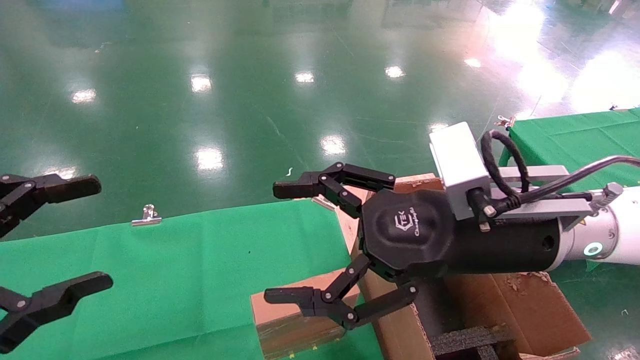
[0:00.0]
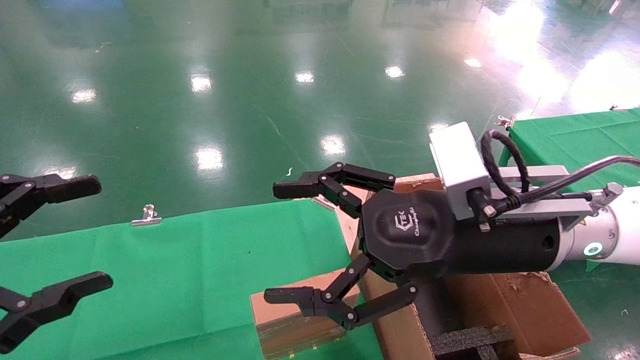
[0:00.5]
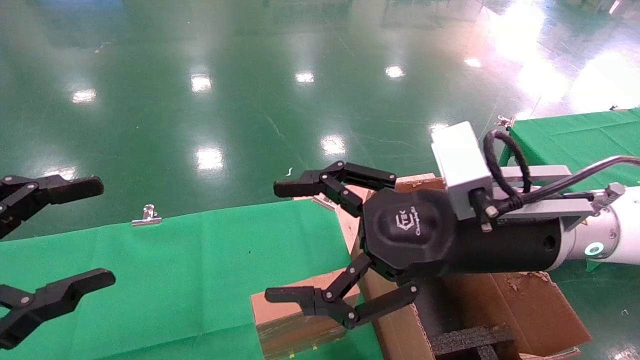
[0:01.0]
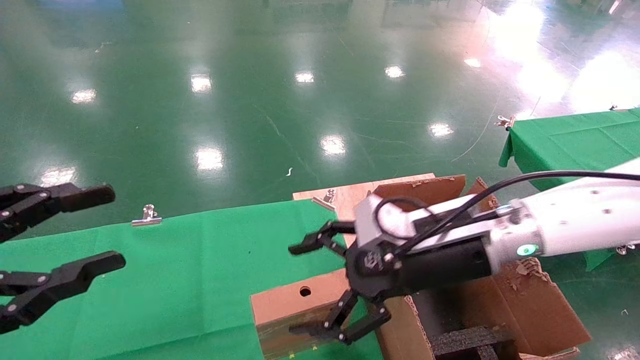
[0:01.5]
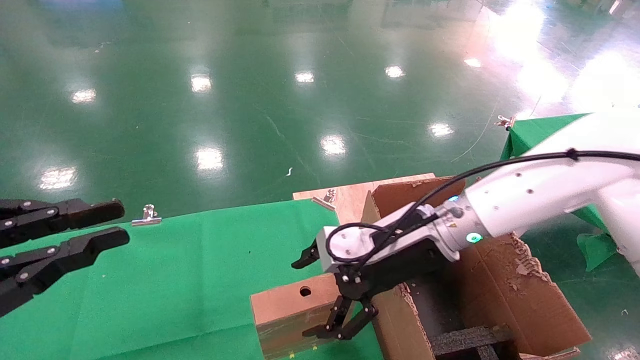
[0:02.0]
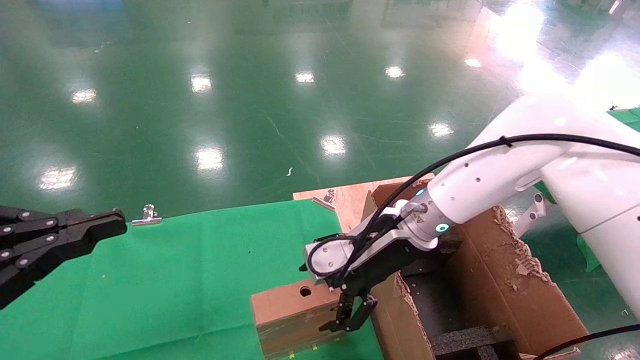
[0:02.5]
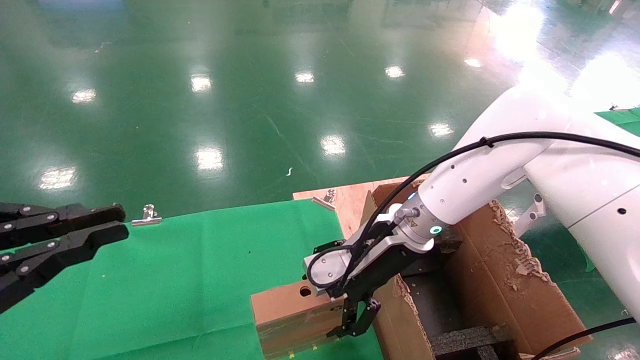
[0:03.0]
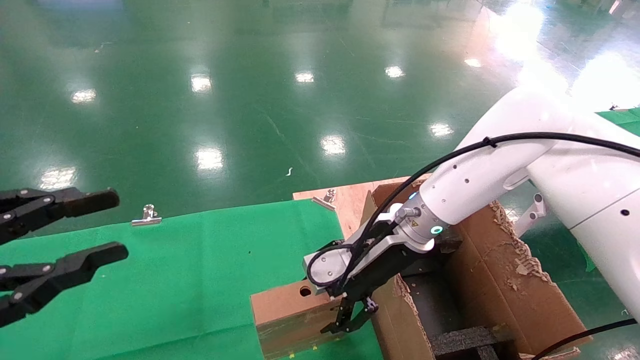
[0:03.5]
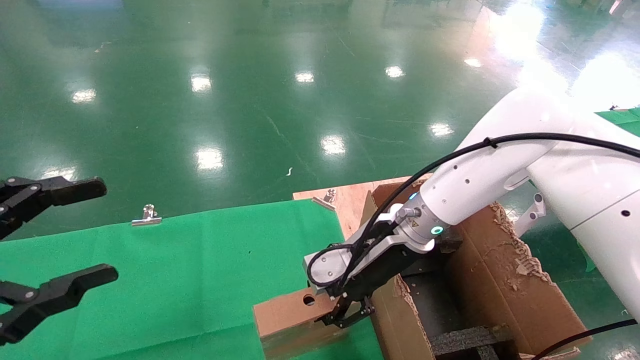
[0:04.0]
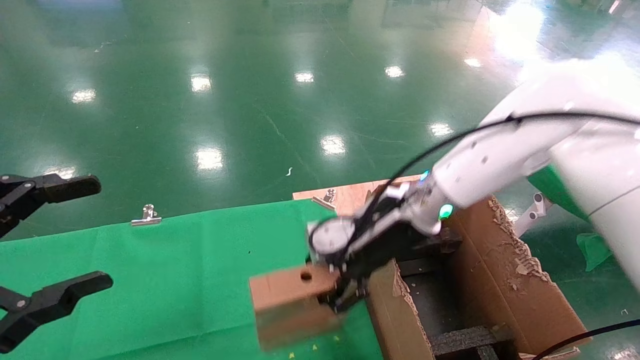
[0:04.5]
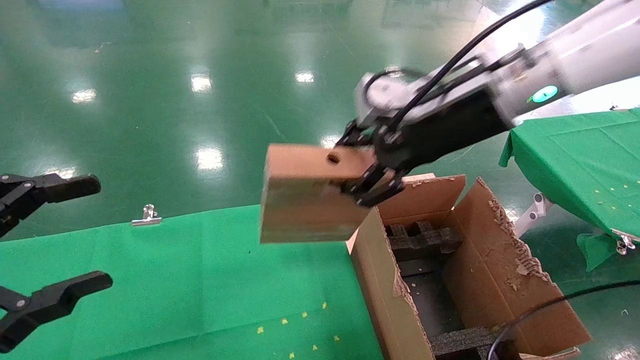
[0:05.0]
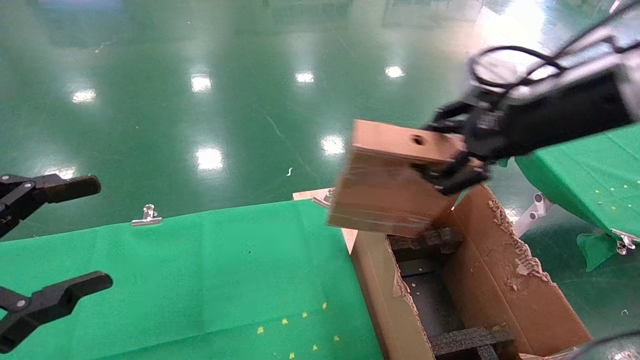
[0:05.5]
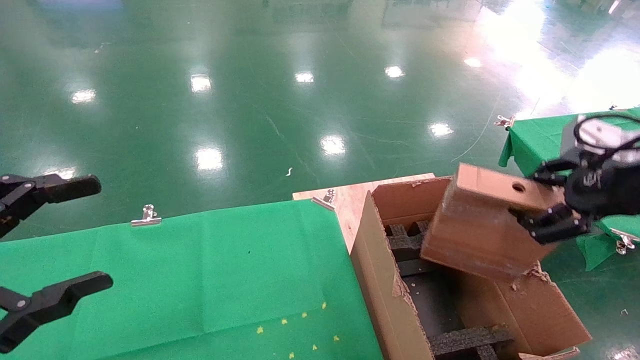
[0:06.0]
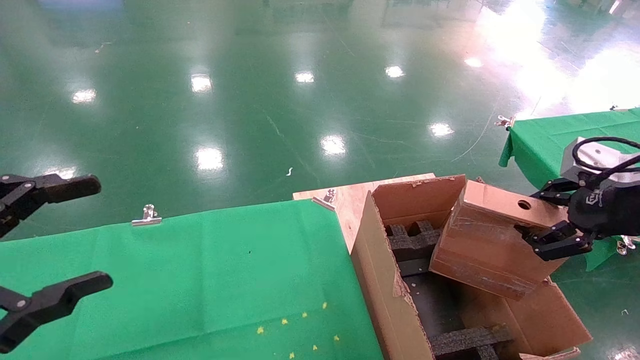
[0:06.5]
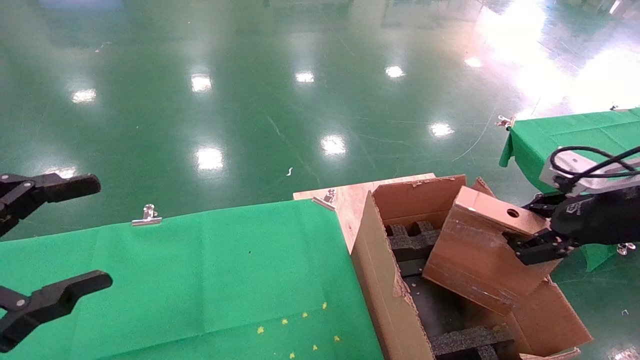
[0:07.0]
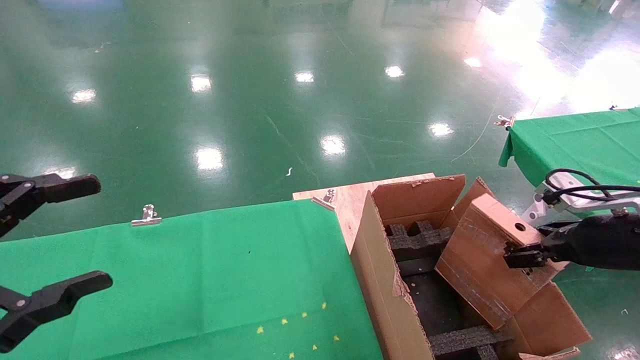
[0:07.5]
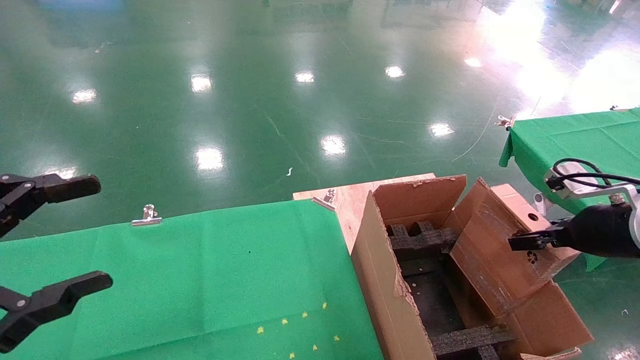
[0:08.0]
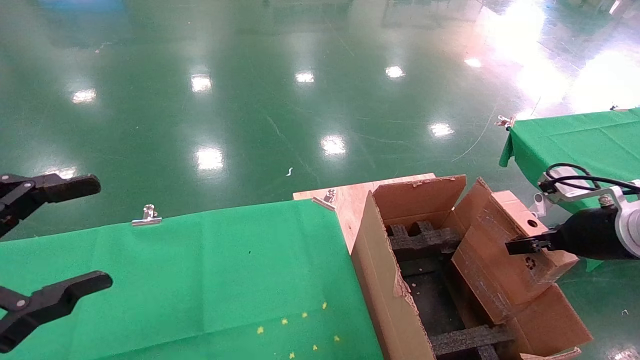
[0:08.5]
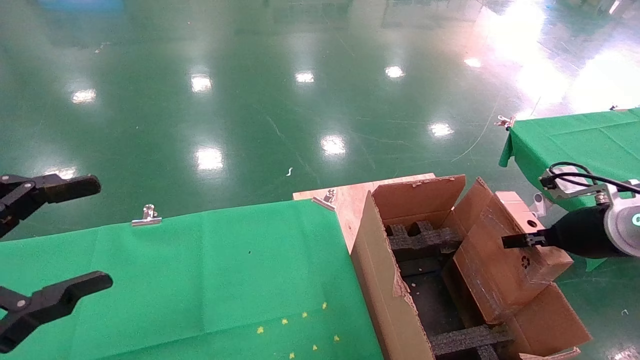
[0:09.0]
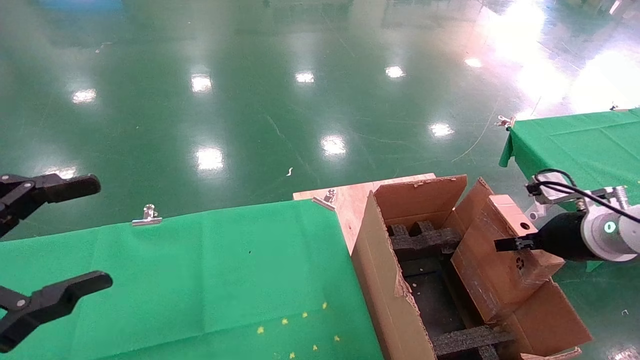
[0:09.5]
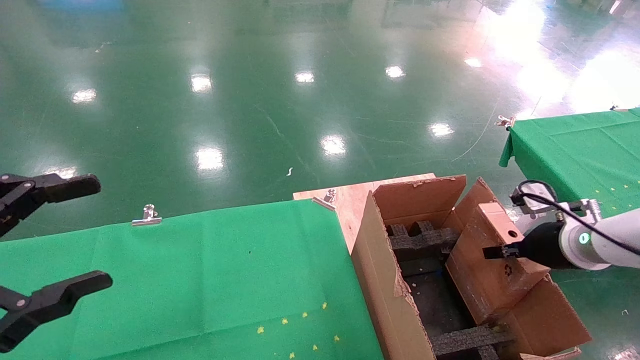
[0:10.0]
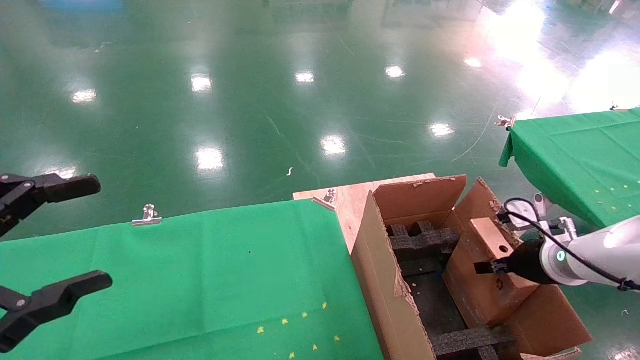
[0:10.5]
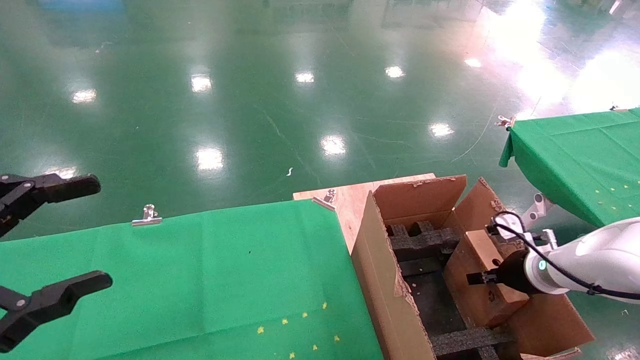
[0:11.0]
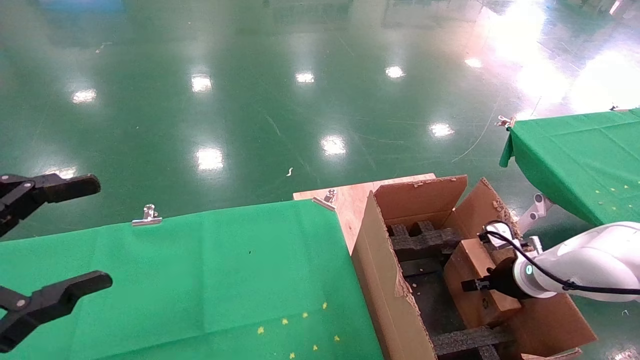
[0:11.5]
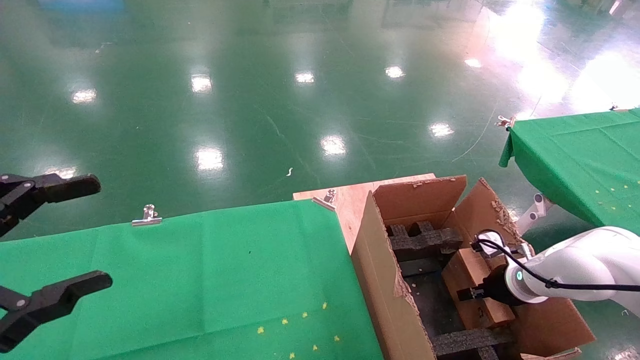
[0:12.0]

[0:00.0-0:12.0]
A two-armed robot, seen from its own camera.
Task of the whole recording: using a robotic arm to pick up a cardboard box and palace it the carton.
Step, 0:01.5 to 0:03.5: Pick up the mouse and the power cord paper box.
0:00.0 to 0:02.0: The left gripper closes up, while the right gripper is displaced forward and downward by approximately 10 cm.
0:02.0 to 0:04.0: The right gripper closes its fingers. The left gripper opens its fingers.
0:04.0 to 0:06.0: The right gripper heads to the right, backward and upward, covering some 30 cm.
0:06.0 to 0:08.0: The right gripper moves downward, roughly 10 cm.
0:08.0 to 0:10.0: The right gripper moves downward and forward, approximately 10 cm.
0:10.0 to 0:12.0: The right gripper shifts about 15 cm downward and forward.

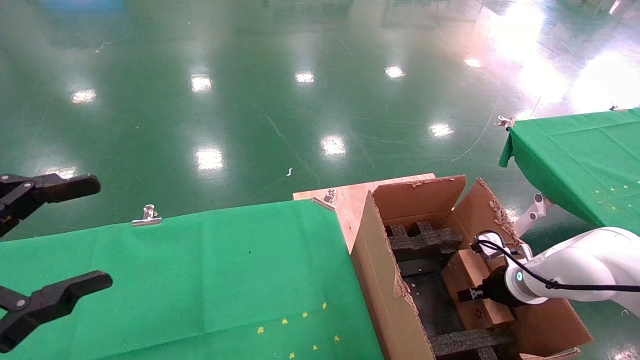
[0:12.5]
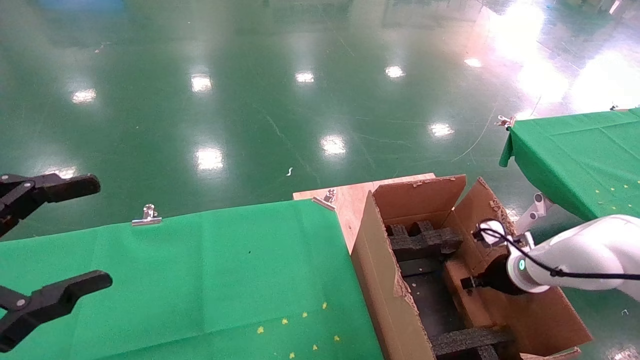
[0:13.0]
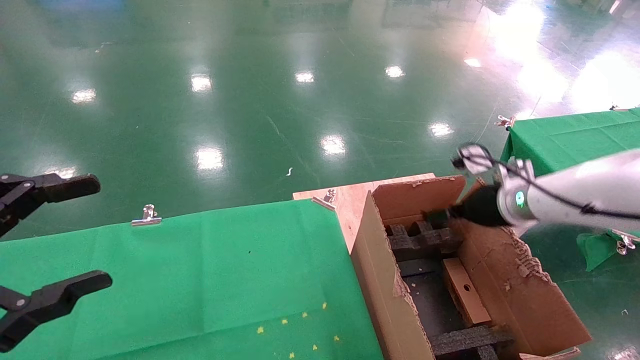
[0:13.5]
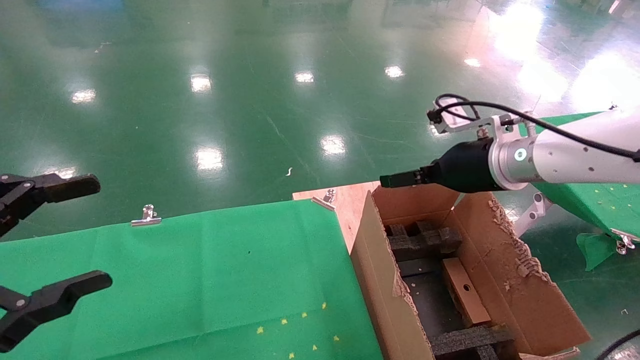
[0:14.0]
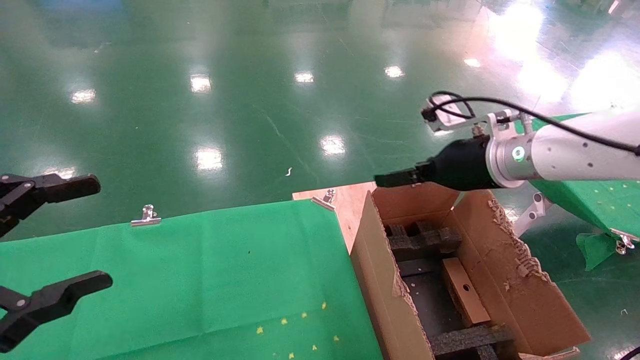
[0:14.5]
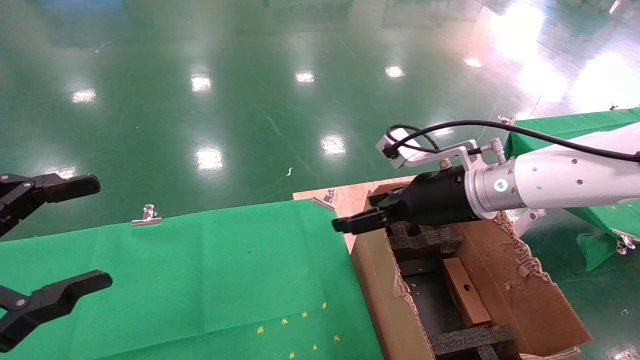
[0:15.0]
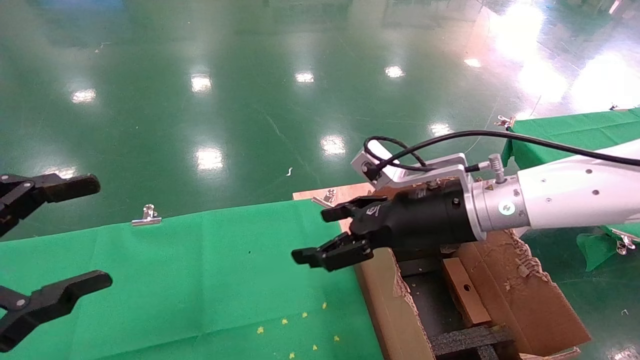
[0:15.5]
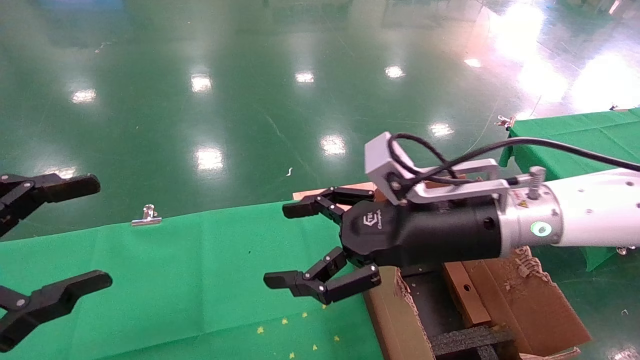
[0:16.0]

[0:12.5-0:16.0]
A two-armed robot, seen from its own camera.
Task of the whole recording: using a robotic arm to pick up a cardboard box and palace it the carton.
0:12.5 to 0:14.5: The right gripper heads upward and to the left, covering approximately 25 cm, and opens its fingers.
0:14.5 to 0:16.0: The right gripper heads backward and to the left, covering roughly 10 cm.

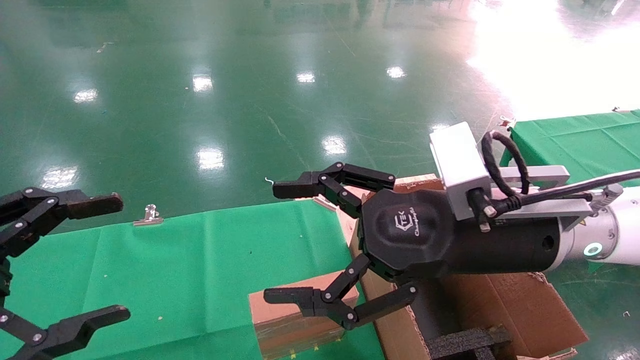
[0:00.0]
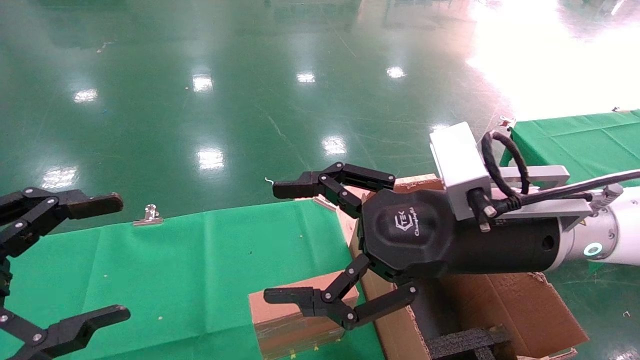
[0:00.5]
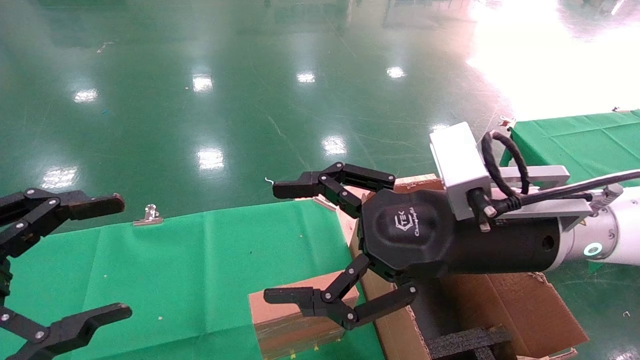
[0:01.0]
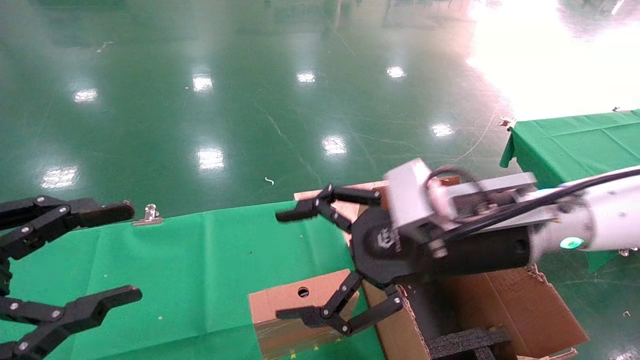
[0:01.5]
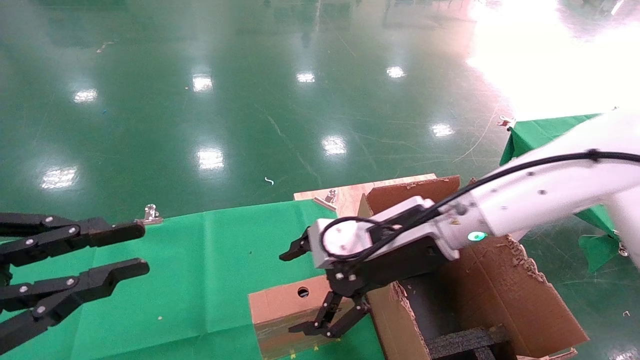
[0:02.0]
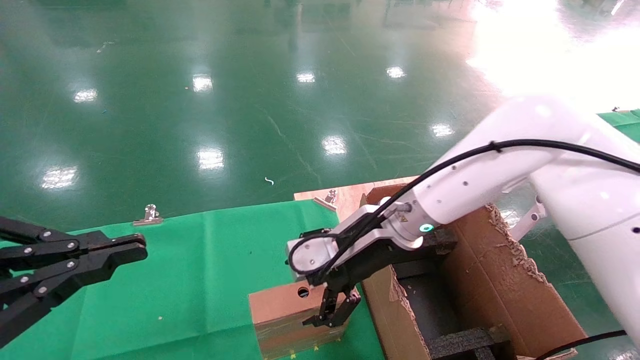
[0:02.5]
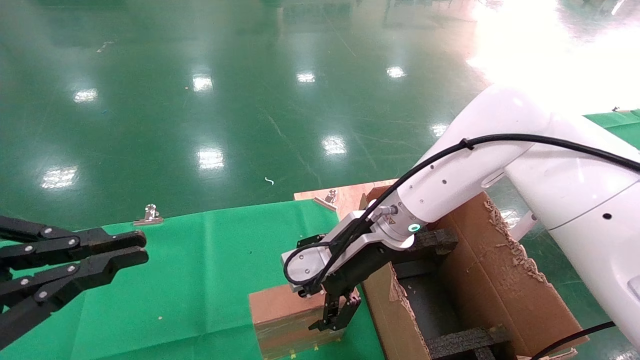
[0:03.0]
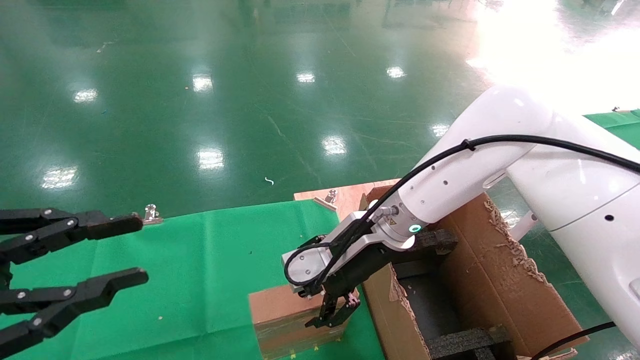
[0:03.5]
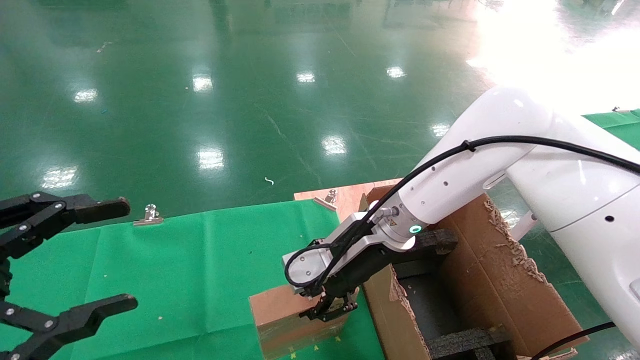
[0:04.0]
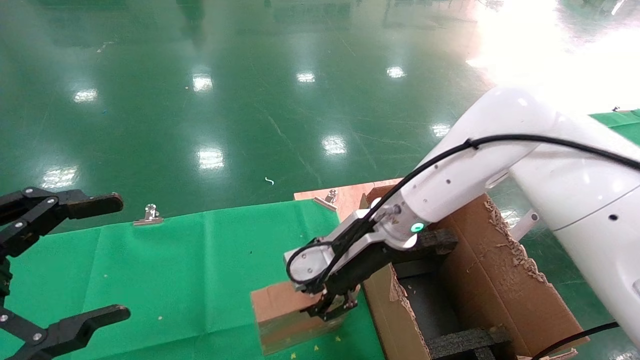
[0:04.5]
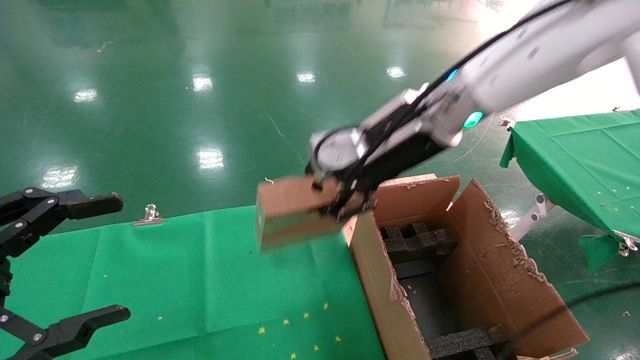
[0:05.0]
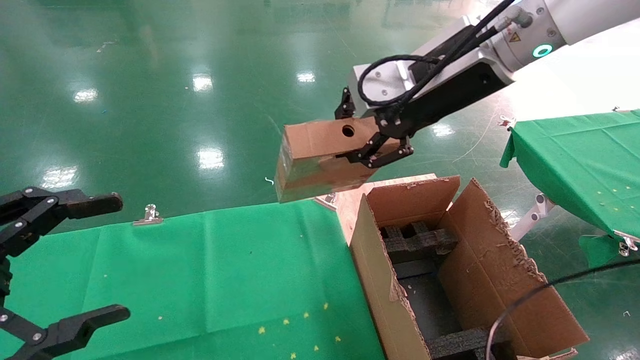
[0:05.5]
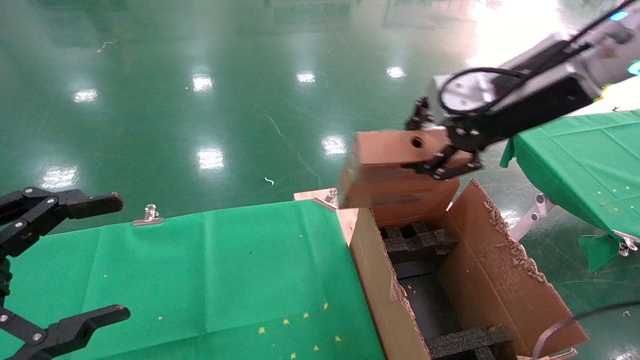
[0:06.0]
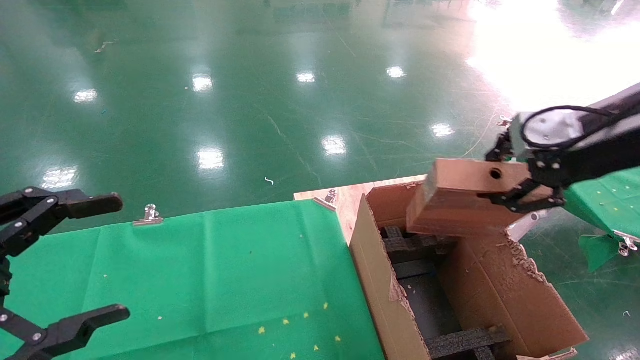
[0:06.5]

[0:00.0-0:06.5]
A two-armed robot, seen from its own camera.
Task of the whole recording: using a robotic arm to pick up a cardboard box and palace it the carton.
Step, 0:01.5 to 0:03.5: Pick up the mouse and the power cord paper box.
0:00.0 to 0:02.0: The left gripper closes up. The right gripper is displaced forward by roughly 10 cm.
0:02.0 to 0:04.5: The right gripper changes place by some 5 cm, and closes up; the left gripper opens up.
0:04.5 to 0:06.5: The right gripper goes roughly 30 cm to the right, upward and backward.
